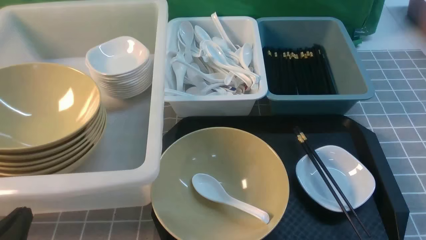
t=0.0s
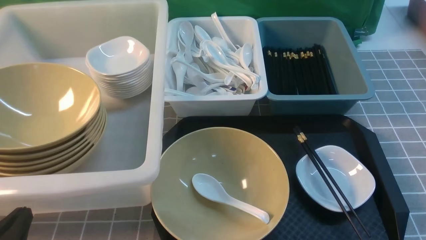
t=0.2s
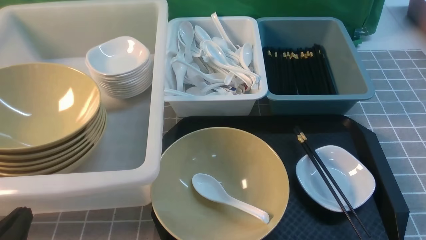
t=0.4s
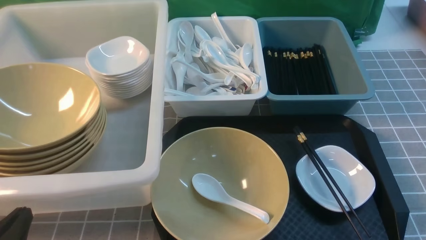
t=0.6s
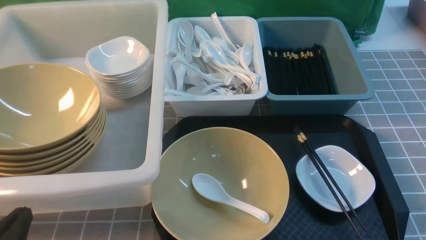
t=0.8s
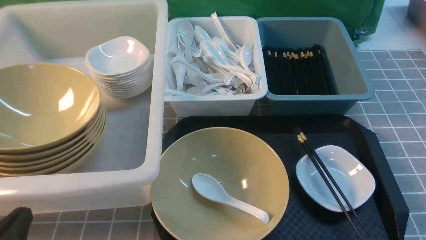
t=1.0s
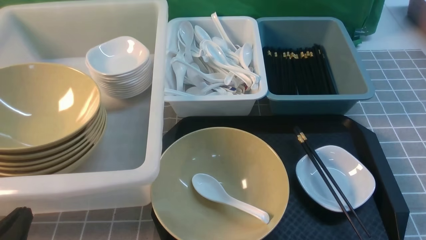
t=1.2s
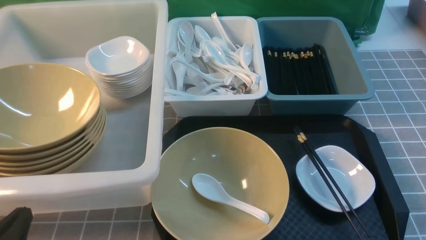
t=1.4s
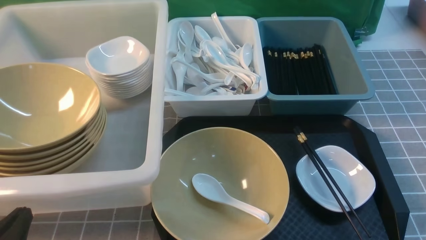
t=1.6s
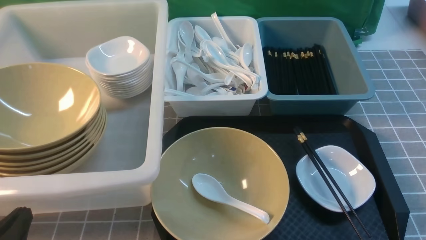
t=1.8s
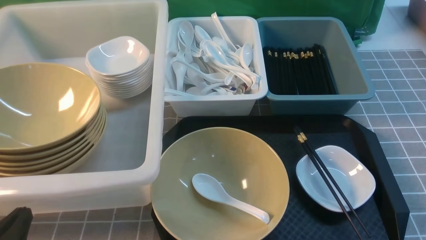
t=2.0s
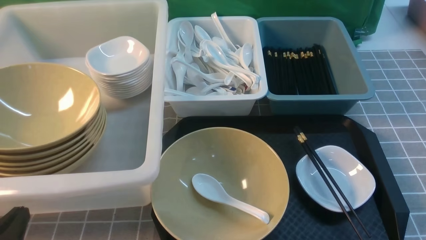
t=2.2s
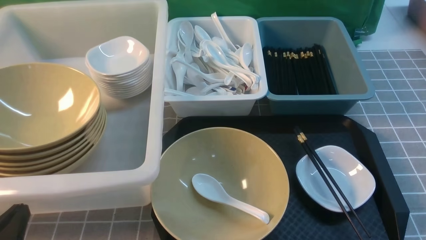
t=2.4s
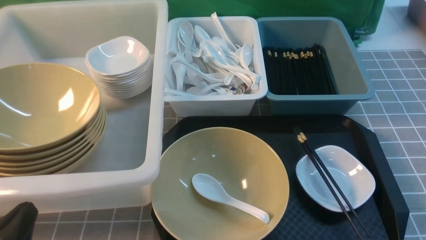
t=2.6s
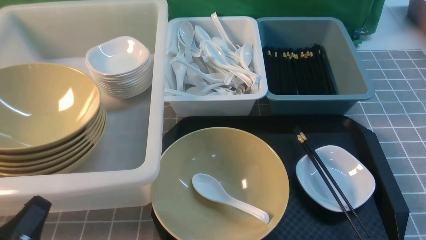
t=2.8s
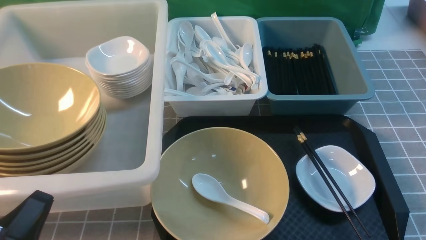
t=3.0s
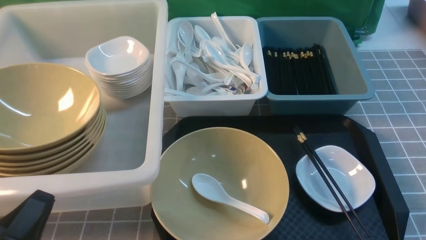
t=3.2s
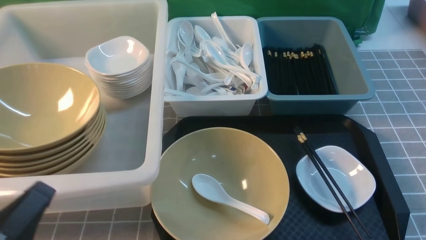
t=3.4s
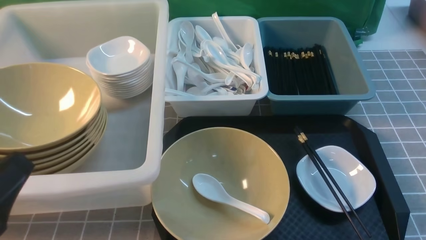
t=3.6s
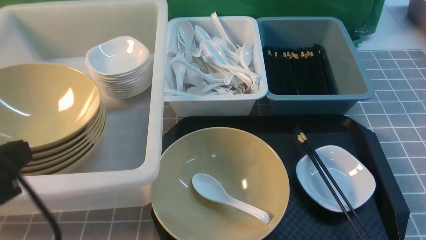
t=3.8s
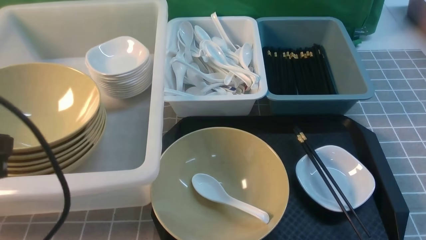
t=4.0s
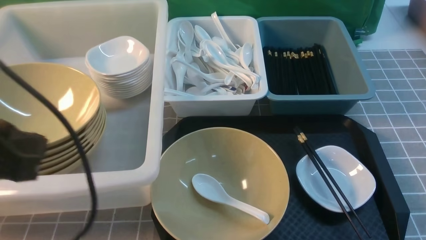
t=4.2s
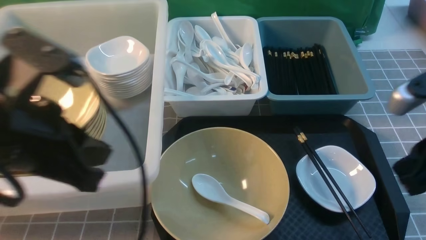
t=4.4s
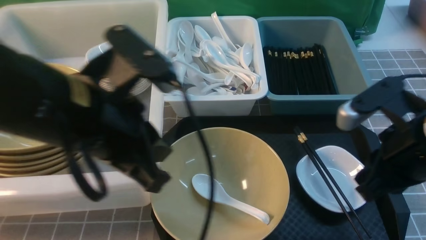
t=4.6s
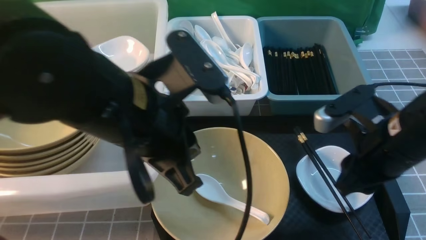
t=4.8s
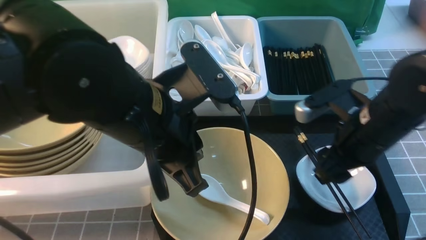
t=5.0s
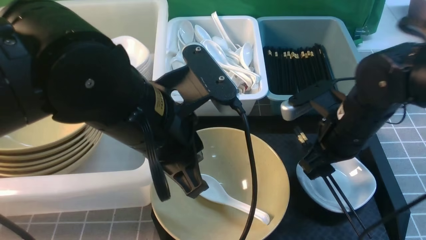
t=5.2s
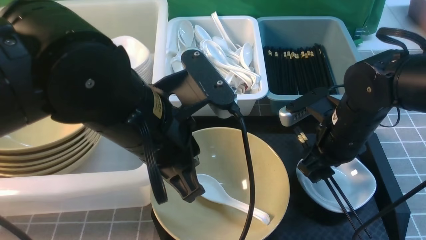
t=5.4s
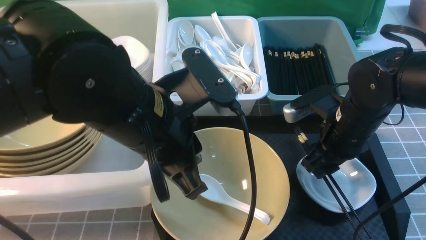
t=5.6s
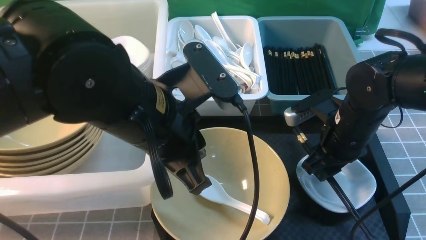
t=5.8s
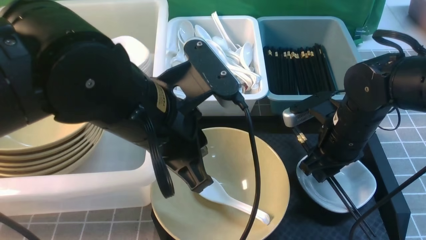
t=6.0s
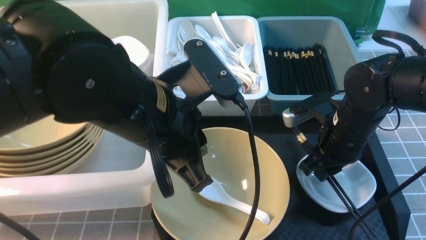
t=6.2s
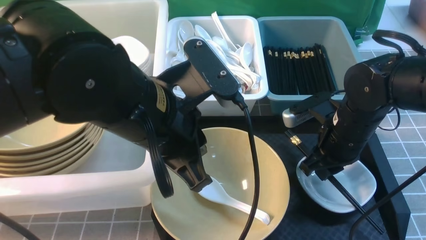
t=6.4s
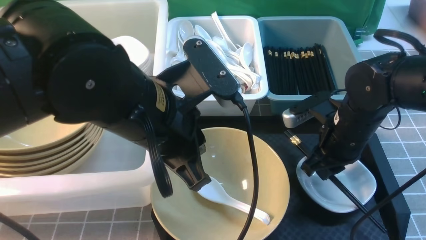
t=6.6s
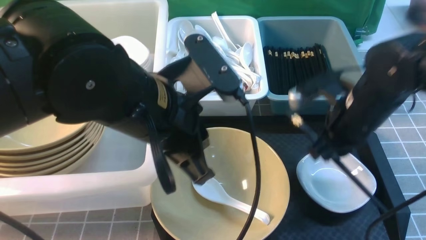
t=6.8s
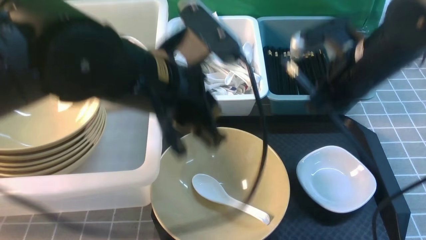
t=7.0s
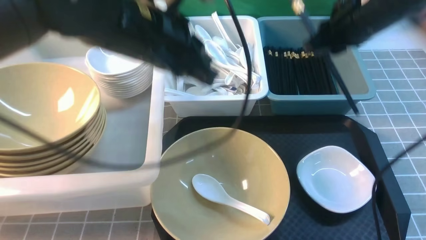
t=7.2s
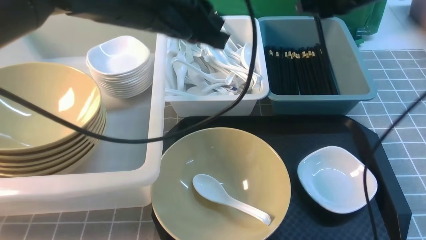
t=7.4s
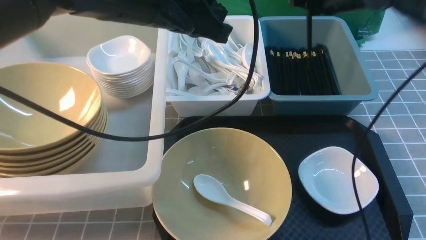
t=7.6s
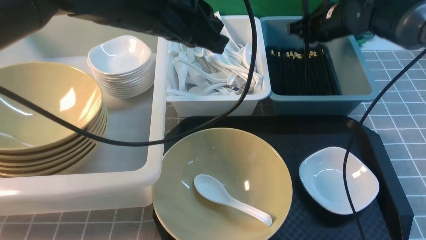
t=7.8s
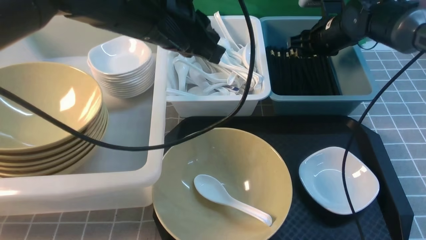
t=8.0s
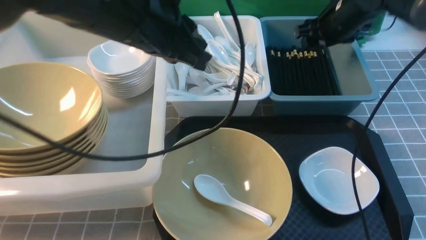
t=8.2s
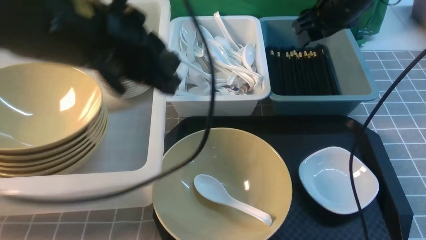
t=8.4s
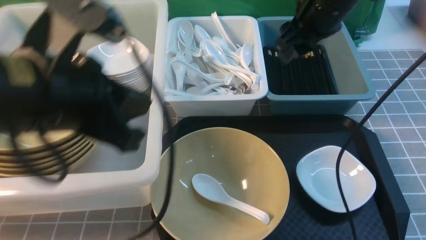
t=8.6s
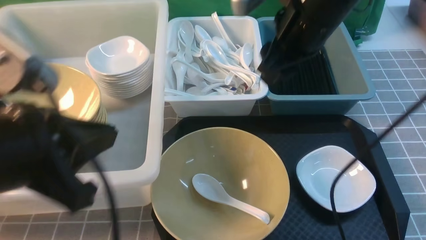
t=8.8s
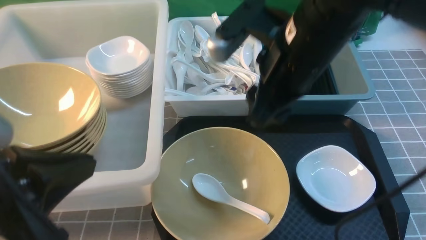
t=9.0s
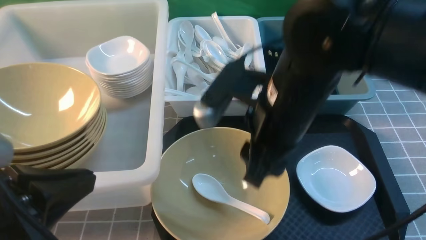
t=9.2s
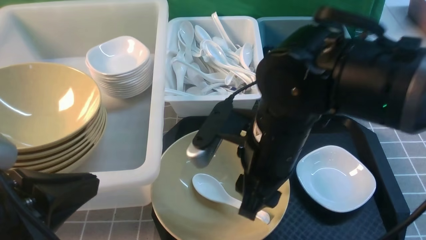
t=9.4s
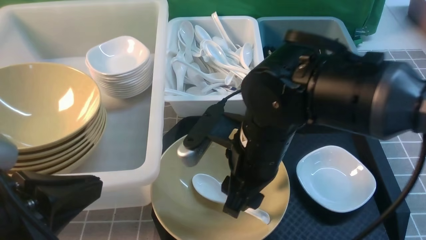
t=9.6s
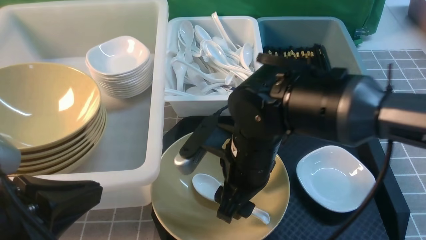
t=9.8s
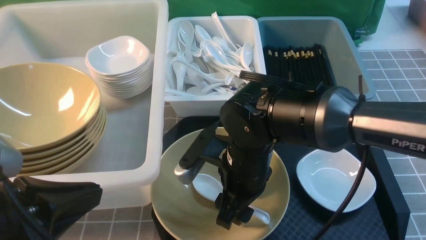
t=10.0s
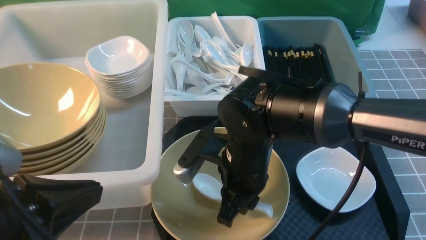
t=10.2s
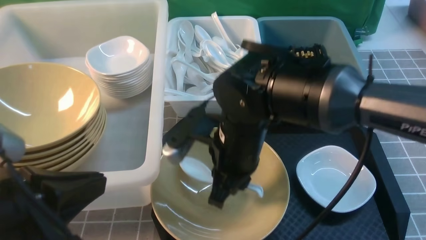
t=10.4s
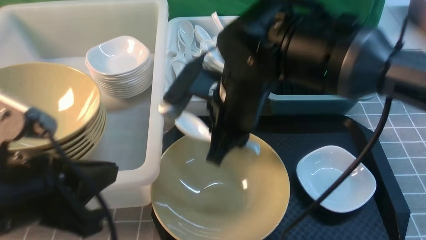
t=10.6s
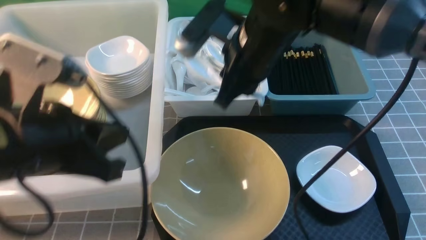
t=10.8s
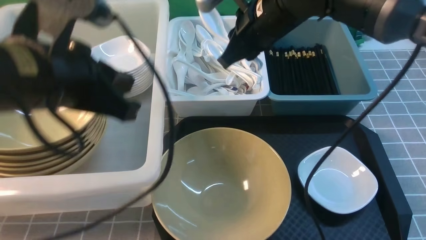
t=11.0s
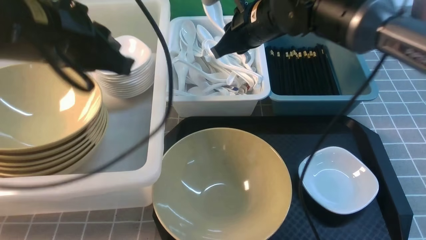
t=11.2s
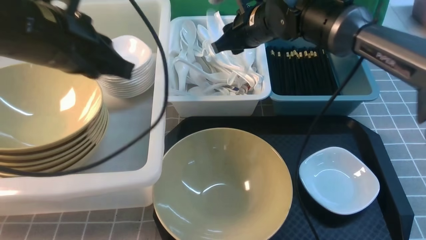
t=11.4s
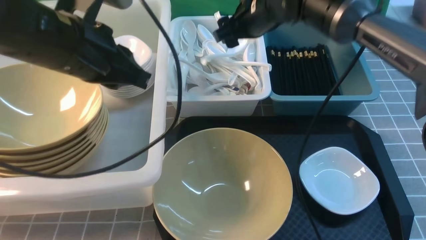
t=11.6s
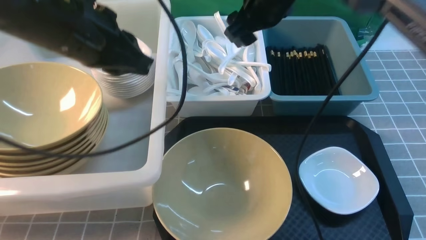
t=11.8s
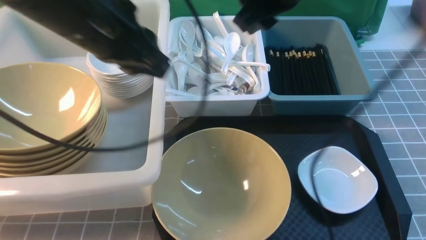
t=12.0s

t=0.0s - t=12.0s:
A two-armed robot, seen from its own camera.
Task of the whole recording: on grey table put chopsticks spoon bowls plates into blue grey white boxes.
Step, t=0.0s - t=6.8s: use the right arm to grab the chopsticks.
Step, t=7.0s - t=8.2s: use the right arm to put the chopsticks into the small storage box on the right.
Step, t=8.4s - t=10.4s: use the right arm to grab the soup spoon in the middle.
Step, t=10.6s - t=11.6s: use the right arm to put the soup spoon into the small storage box in the middle.
t=0.0s - t=1.6s: The two grippers keep their place.
t=3.0s - t=4.4s: The left gripper goes about 20 cm upward, forward and to the right. Meanwhile the right gripper shifts some 20 cm forward, upward and to the left, and closes up.
t=4.4s - t=6.0s: The right gripper travels forward, downward and to the left by approximately 20 cm, and opens up; the left gripper travels to the right by roughly 10 cm.
t=6.0s - t=7.6s: The right gripper travels forward and upward by some 20 cm. The left gripper moves forward and upward, roughly 10 cm.
t=7.6s - t=9.0s: Both grippers move backward and to the left, some 25 cm. The right gripper opens.
t=9.0s - t=10.4s: The right gripper is displaced downward and to the left by approximately 10 cm, and closes up.
t=10.4s - t=12.0s: The left gripper travels forward and to the right by about 20 cm, while the right gripper heads upward, to the right and forward, covering some 20 cm, and opens.

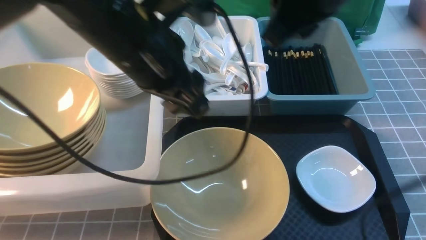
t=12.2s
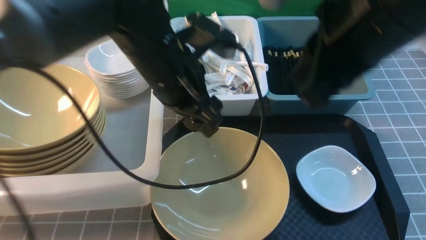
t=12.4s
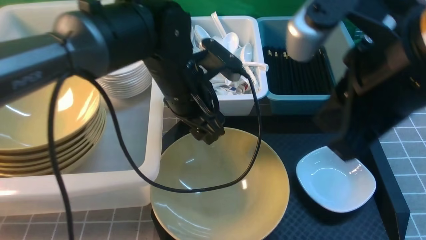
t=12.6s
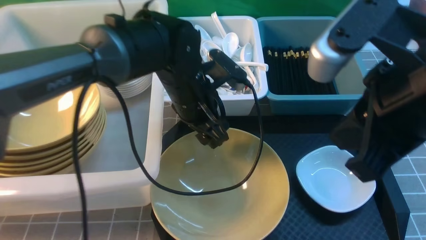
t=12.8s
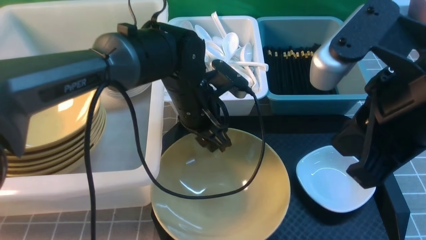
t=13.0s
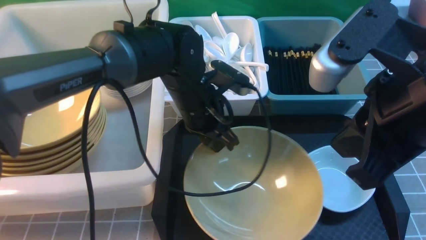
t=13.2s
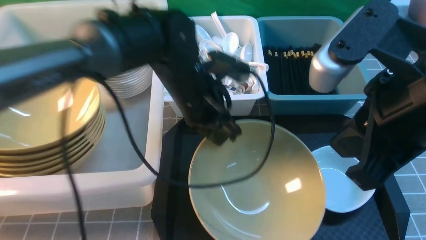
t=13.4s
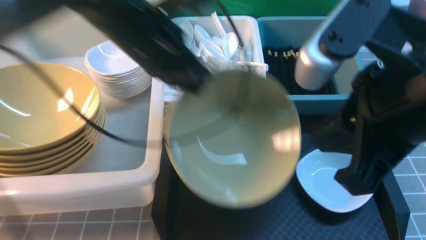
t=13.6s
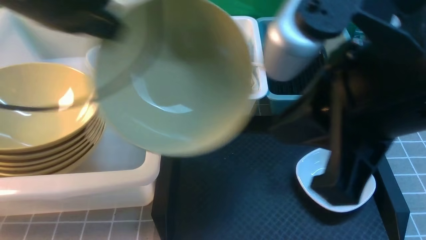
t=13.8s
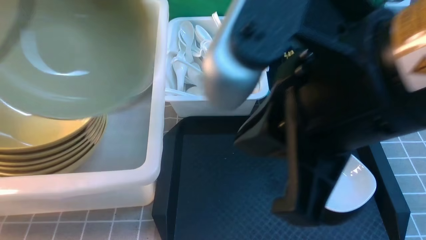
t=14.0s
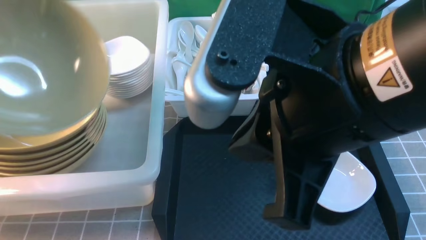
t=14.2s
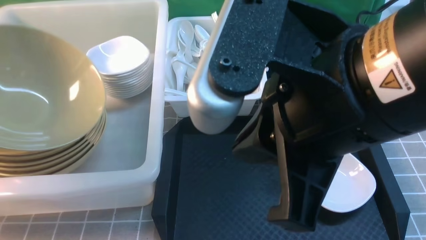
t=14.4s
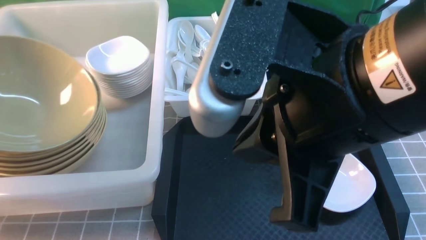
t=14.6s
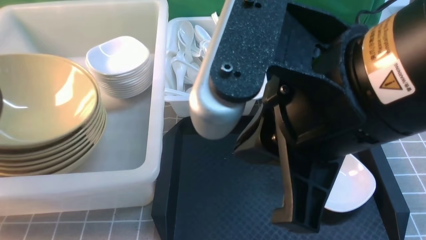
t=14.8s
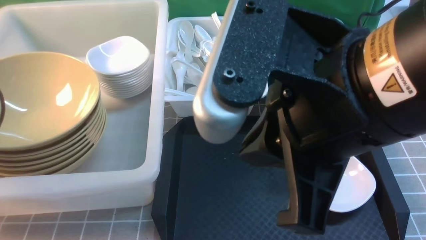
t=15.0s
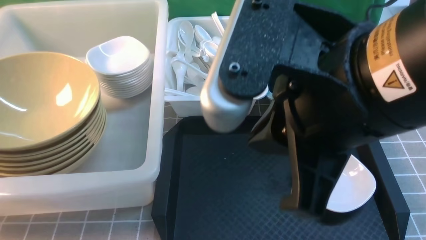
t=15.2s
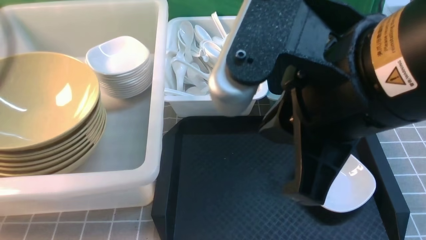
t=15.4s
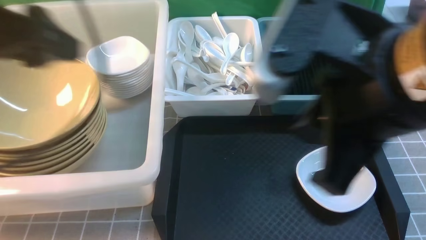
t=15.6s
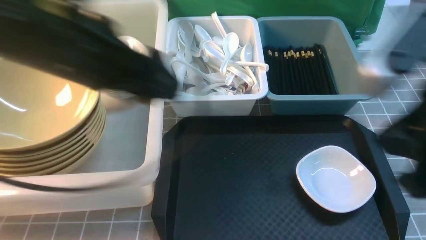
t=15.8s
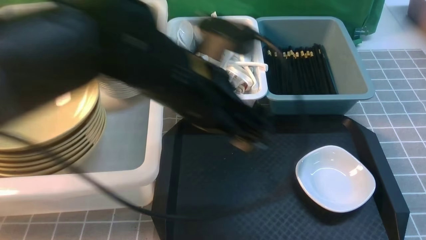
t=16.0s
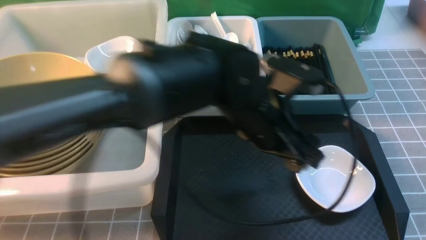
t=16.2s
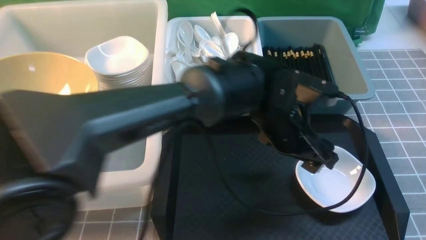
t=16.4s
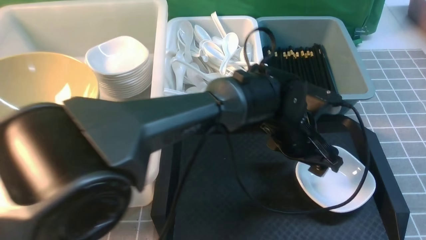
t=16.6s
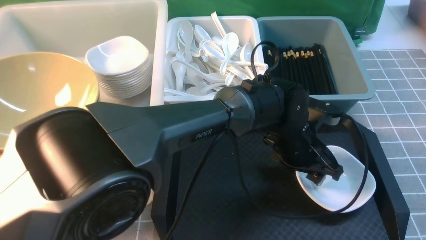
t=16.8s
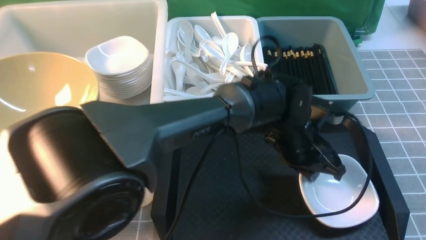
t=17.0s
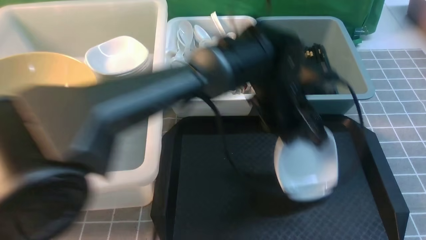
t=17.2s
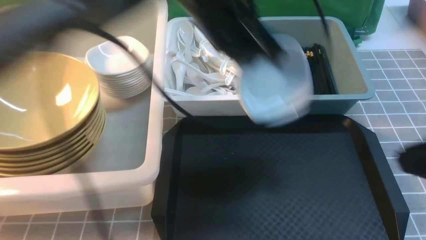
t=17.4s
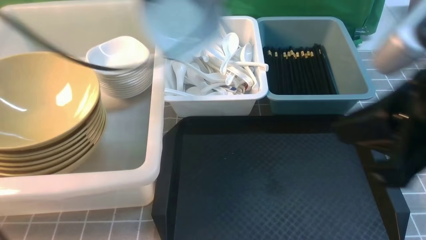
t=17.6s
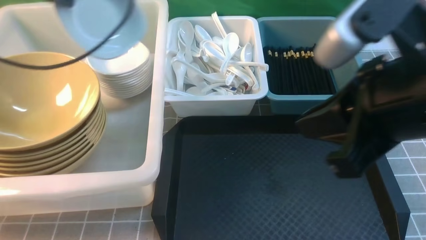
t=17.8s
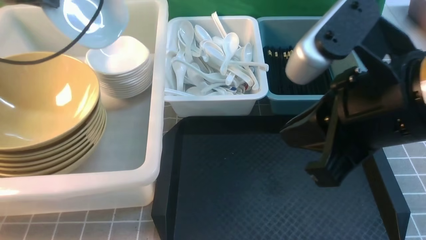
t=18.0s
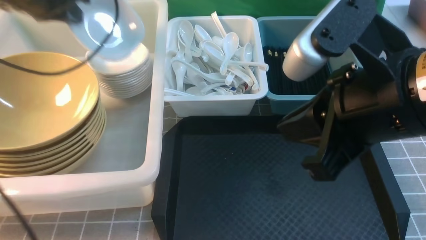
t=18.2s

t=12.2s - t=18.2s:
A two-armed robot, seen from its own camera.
Task of the whole recording: on grey table put chopsticks spoon bowls plates into blue grey white boxes.
Step, t=12.2s - t=13.2s: use the left arm to grab the yellow noodle bowl on the left.
Step, t=13.6s - t=15.2s: use the left arm to put the noodle bowl into the large storage box on the left.
Step, t=15.4s - t=17.2s: use the left arm to grab the plate.
t=12.2s - t=13.8s: The left gripper travels to the left and upward by approximately 15 cm, and closes up, while the right gripper goes about 15 cm backward.
t=13.8s - t=15.2s: The left gripper goes about 15 cm to the left and downward, and opens its fingers.
t=15.2s - t=16.6s: The right gripper is displaced to the right by about 20 cm, while the left gripper is displaced to the right by about 50 cm.
t=16.6s - t=18.2s: The right gripper heads to the left and forward, covering about 15 cm; the left gripper shifts approximately 40 cm to the left and upward, and closes up.
